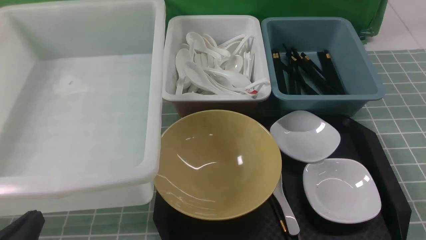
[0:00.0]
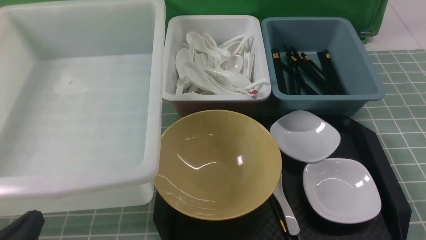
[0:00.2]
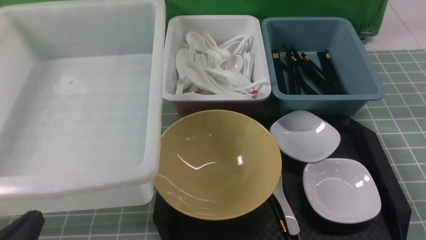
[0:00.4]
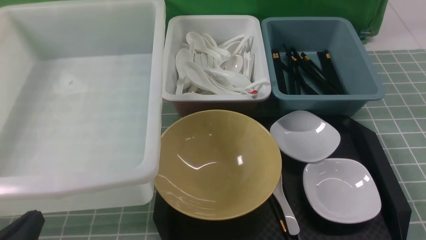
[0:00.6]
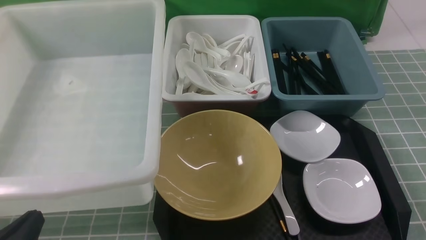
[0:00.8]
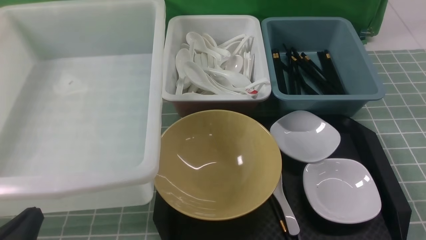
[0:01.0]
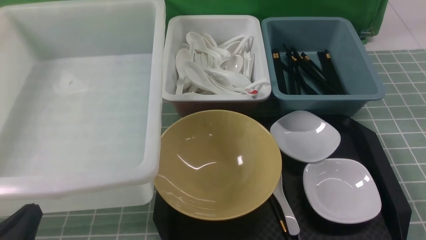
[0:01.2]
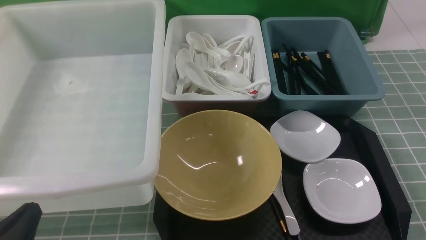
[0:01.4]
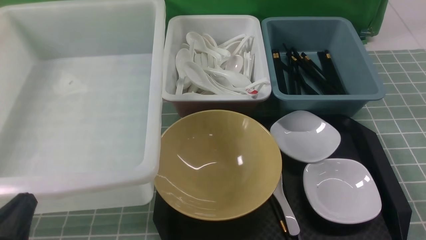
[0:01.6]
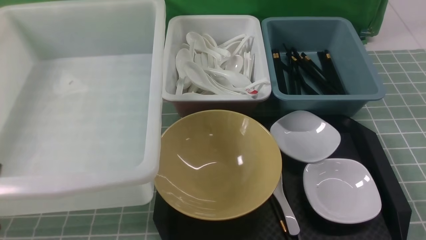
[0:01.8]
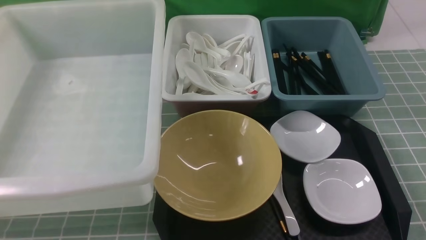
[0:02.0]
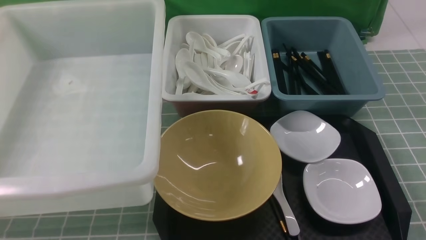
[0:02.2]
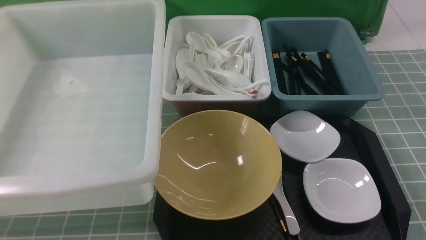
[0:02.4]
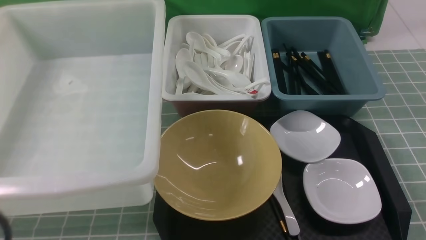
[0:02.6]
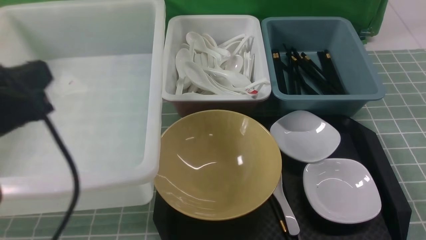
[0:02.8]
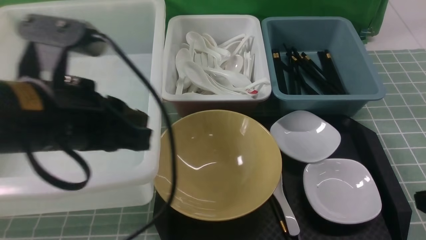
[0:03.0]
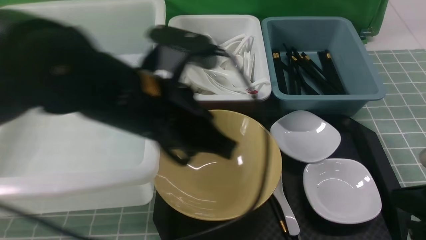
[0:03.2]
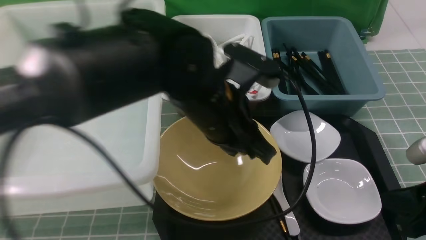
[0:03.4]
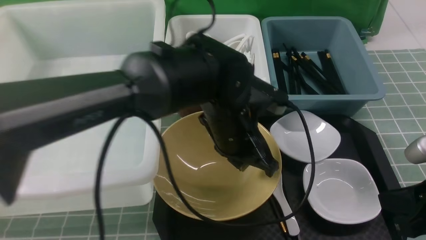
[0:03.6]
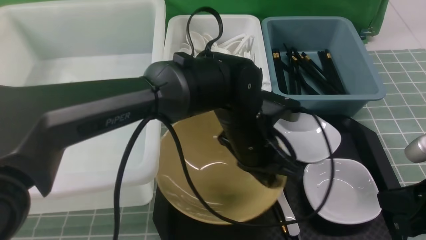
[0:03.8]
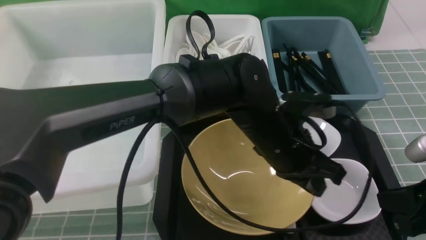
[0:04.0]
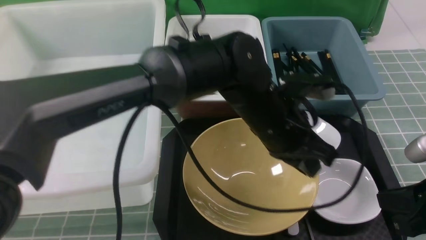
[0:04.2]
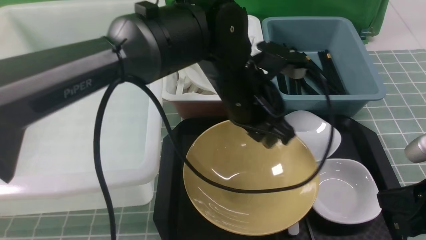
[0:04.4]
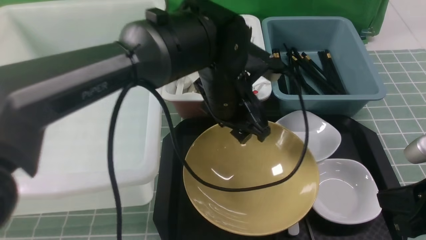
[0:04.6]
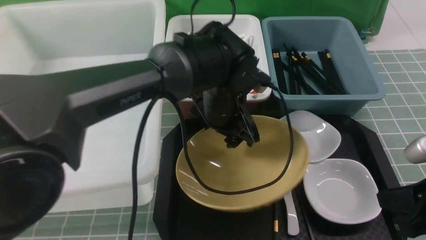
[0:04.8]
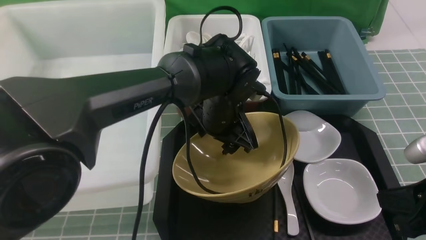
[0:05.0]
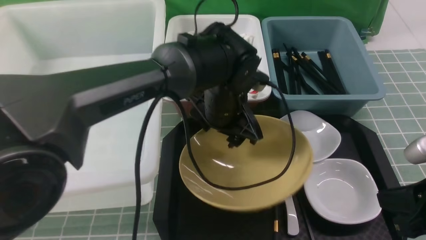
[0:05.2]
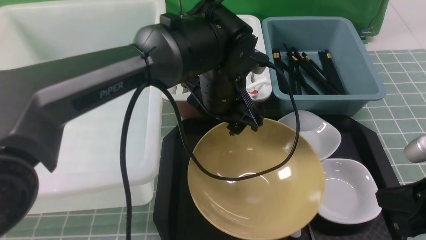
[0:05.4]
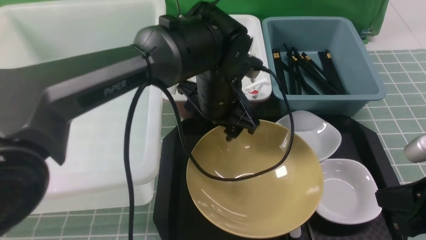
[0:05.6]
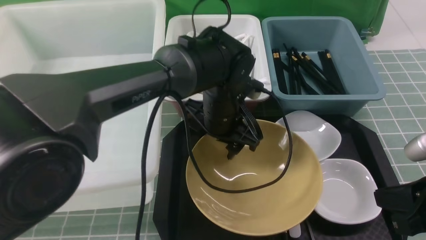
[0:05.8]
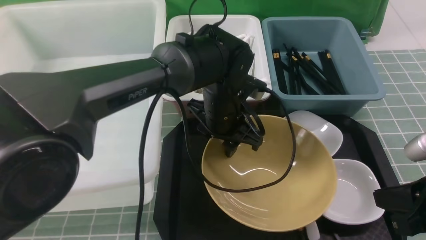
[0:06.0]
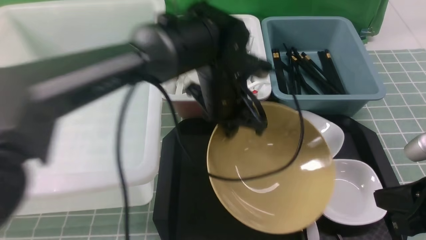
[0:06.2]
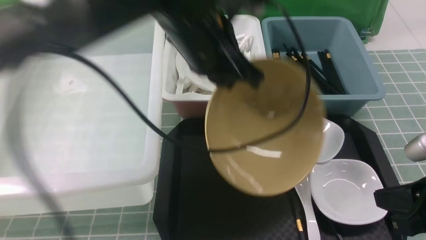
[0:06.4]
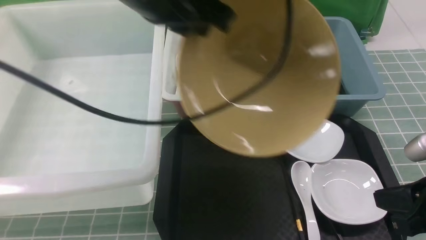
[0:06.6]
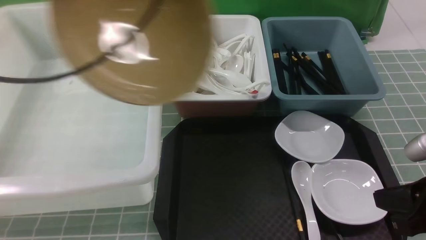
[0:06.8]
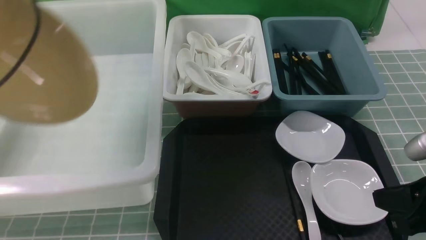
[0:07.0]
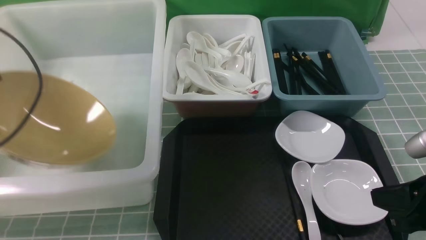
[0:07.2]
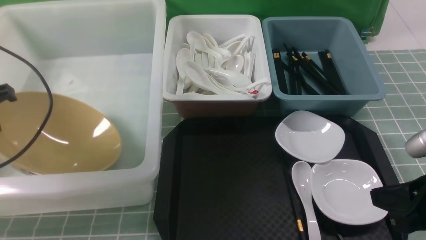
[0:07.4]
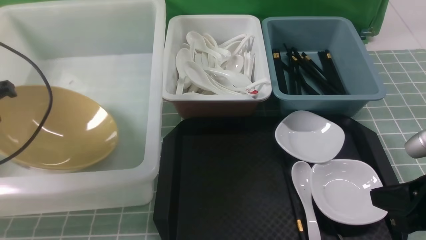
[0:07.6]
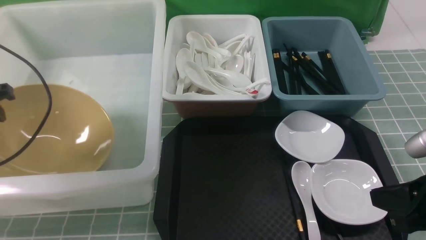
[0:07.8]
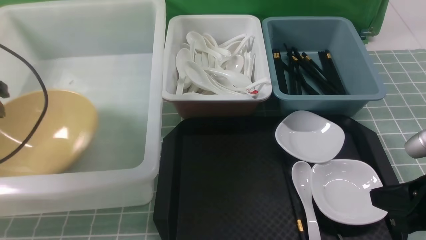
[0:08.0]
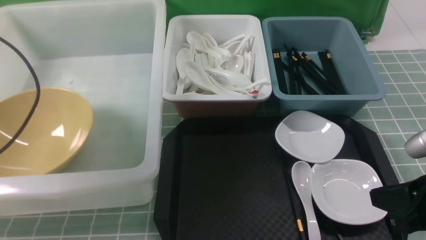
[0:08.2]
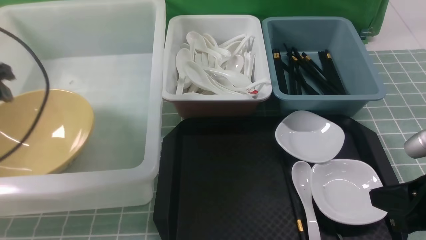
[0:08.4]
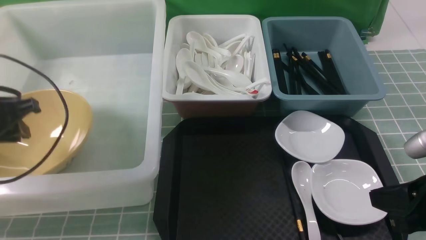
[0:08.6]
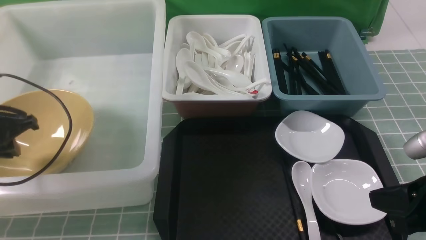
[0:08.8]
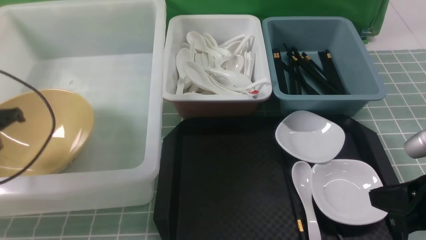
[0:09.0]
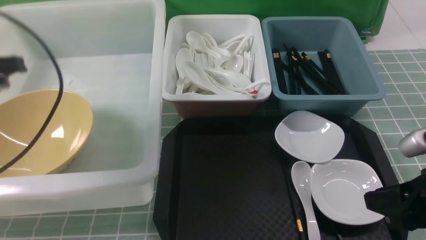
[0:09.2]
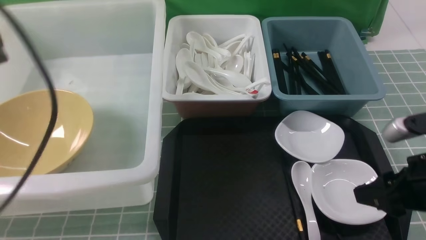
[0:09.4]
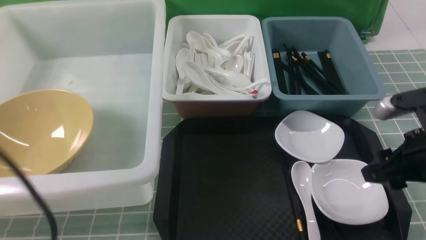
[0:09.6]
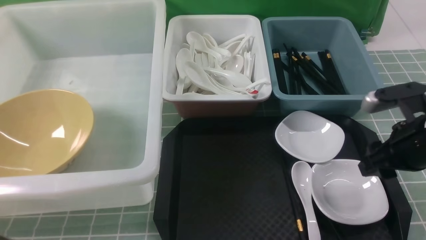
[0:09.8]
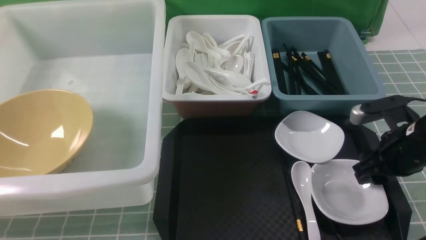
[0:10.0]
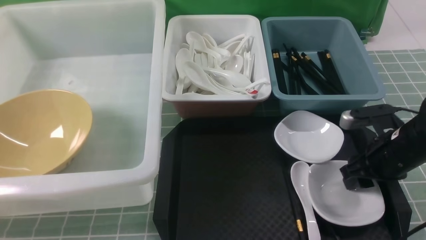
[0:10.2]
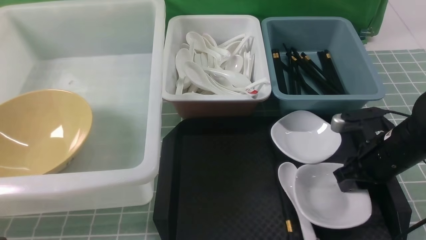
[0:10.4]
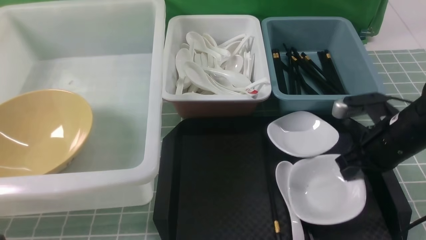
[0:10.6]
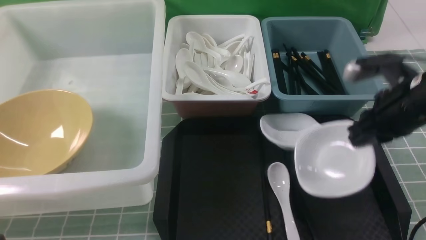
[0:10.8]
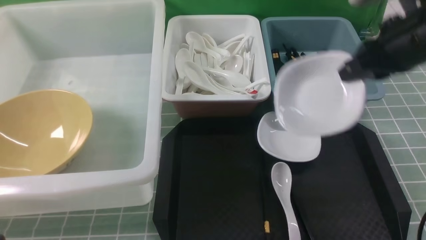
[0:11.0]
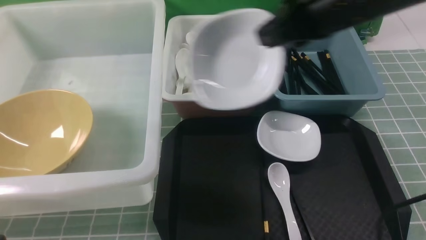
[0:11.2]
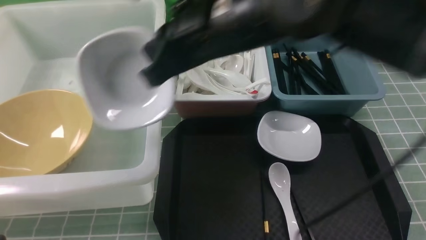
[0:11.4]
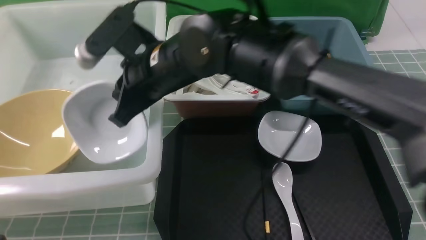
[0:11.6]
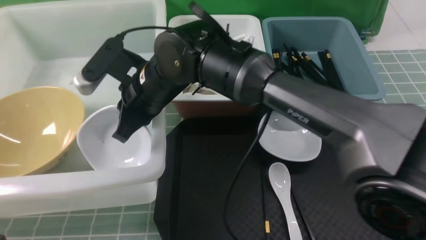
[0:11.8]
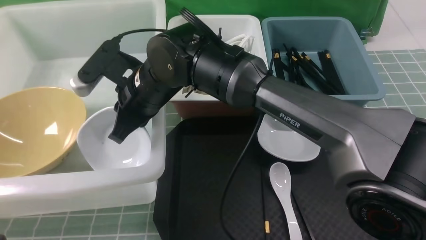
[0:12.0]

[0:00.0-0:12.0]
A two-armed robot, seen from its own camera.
Task of the whole recording: on blue table put chopsticks spoon bowls plates into blue grey white boxes.
Step, 0:00.0 to 0:06.2: use the left arm to grab the yellow noodle bowl on the left.
Step, 0:06.4 to 0:08.0: use the left arm to put the noodle bowl into the large storage box on the left.
Step, 0:08.2 to 0:10.6: use the right arm to grab the plate.
0:00.0 to 0:01.6: The grippers move only a little.
0:01.6 to 0:03.0: The left gripper heads upward, forward and to the right, covering about 25 cm. Meanwhile the right gripper heads upward and forward, covering about 10 cm, and closes.
0:03.0 to 0:04.4: The left gripper shifts roughly 20 cm to the right, forward and downward, and opens up.
0:04.4 to 0:06.0: The left gripper shifts by some 5 cm, and opens and closes again.
0:06.0 to 0:07.6: The left gripper travels to the left by some 35 cm, and closes and opens again.
0:07.6 to 0:09.0: The left gripper opens, then closes again.
0:09.0 to 0:10.4: The right gripper heads forward and downward, covering roughly 15 cm, and opens, then closes again, while the left gripper travels backward by roughly 25 cm.
0:10.4 to 0:12.0: The right gripper travels to the left by some 35 cm.

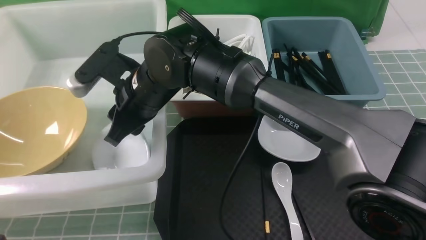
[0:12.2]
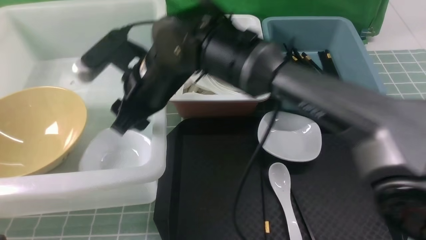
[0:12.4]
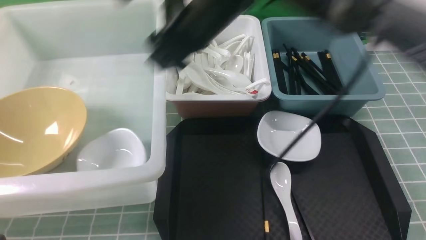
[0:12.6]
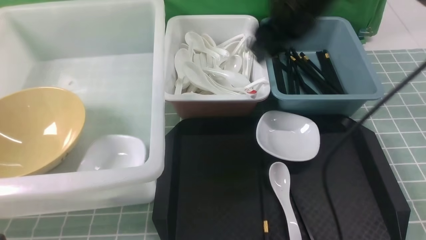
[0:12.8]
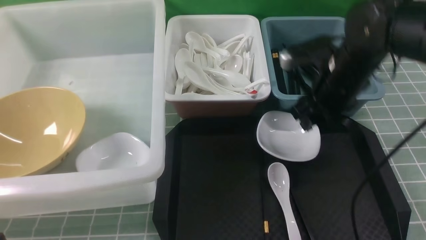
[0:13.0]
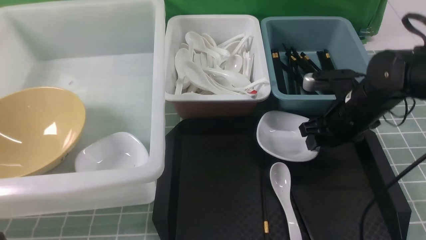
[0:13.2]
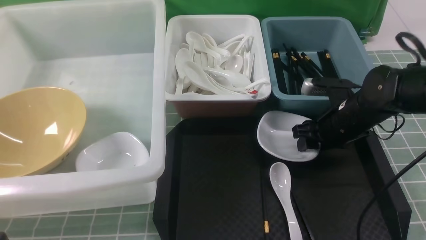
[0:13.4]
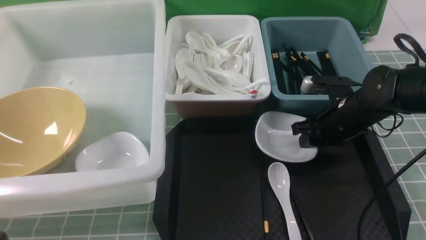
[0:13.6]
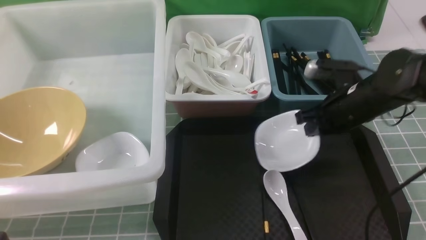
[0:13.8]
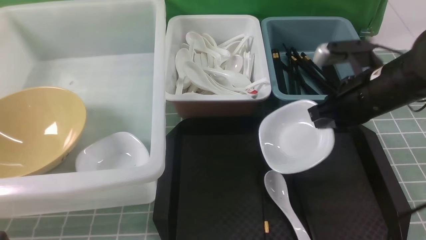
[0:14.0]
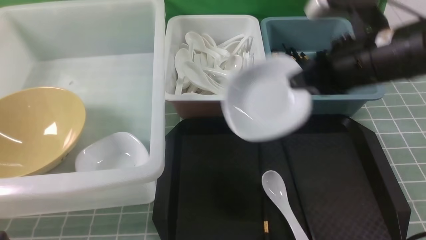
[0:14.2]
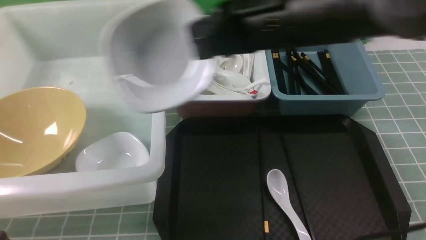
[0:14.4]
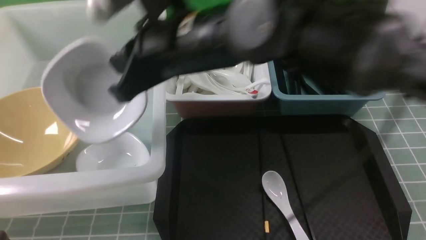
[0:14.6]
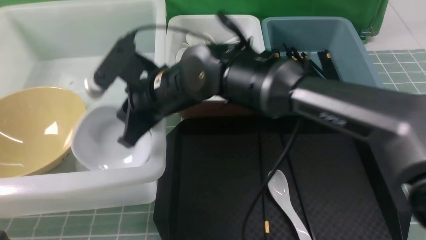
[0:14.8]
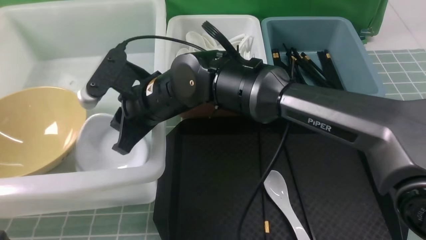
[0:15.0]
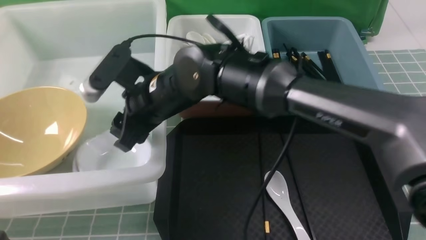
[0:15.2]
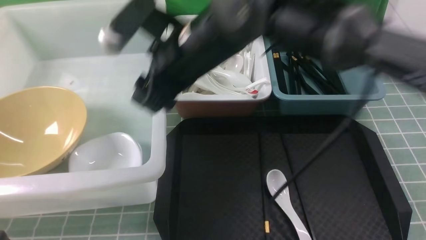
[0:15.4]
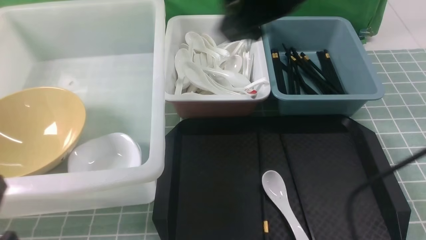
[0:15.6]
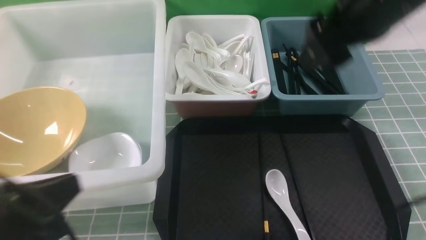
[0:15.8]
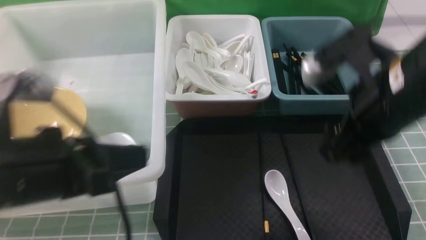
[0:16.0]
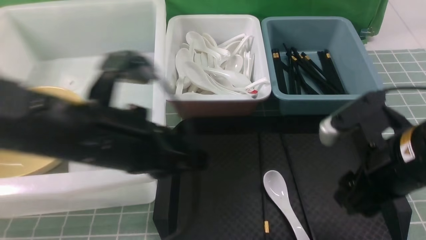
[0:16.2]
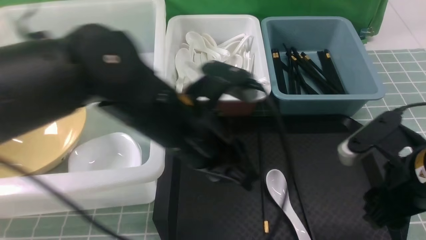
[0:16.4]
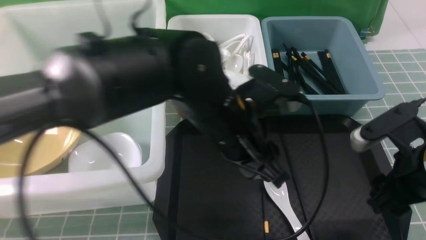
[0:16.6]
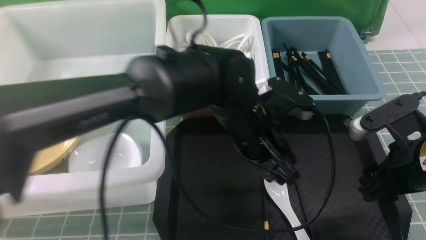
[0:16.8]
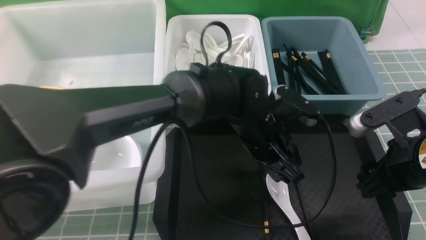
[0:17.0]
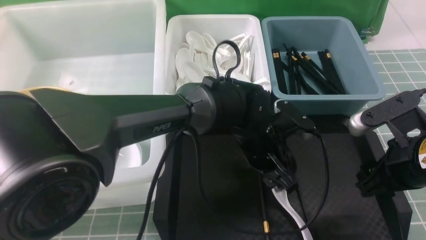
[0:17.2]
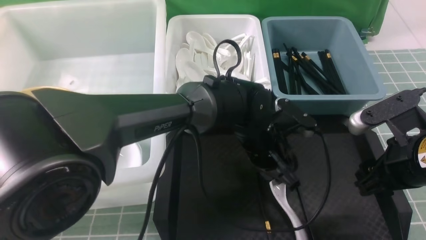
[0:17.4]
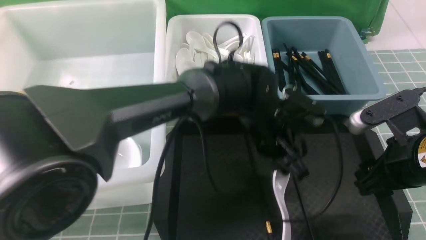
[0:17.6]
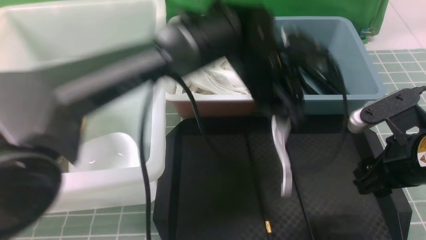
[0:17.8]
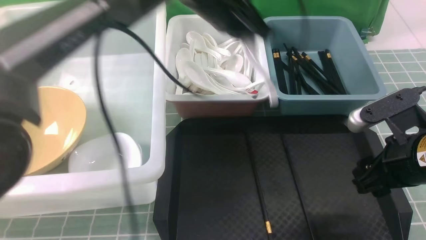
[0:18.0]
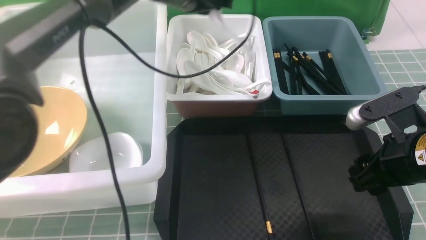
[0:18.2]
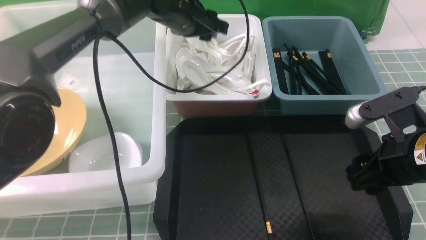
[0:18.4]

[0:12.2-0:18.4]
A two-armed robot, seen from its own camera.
Task of the whole recording: on blue table put chopsticks spoon bowls plates into blue grey white boxes.
Step, 0:12.6 to 0:14.0: use the right arm to grab the plate.
Step, 0:14.2 to 0:15.2: use the right arm to put the plate into the large storage box on the left.
Step, 0:15.4 to 0:17.4: use the left arm to grab the soup spoon in the middle.
0:12.2 to 0:13.8: The right gripper is displaced to the right by roughly 30 cm, and closes its fingers.
0:13.8 to 0:15.4: The right gripper moves to the left and upward, approximately 25 cm, and opens its fingers.
0:15.4 to 0:16.8: The right gripper shifts some 30 cm to the right, downward and backward. Meanwhile the left gripper goes about 40 cm to the right and forward, and opens up.
0:16.8 to 0:18.4: The left gripper shifts roughly 25 cm forward, to the left and upward, and closes and opens again.
